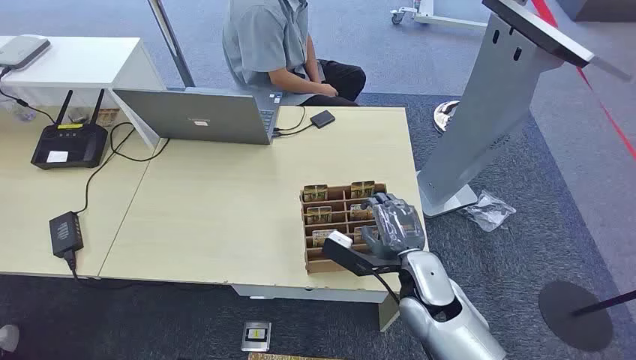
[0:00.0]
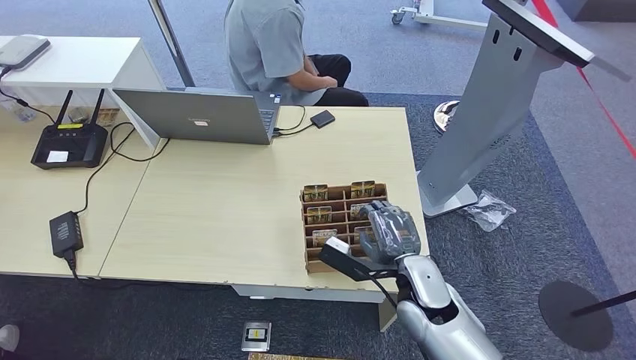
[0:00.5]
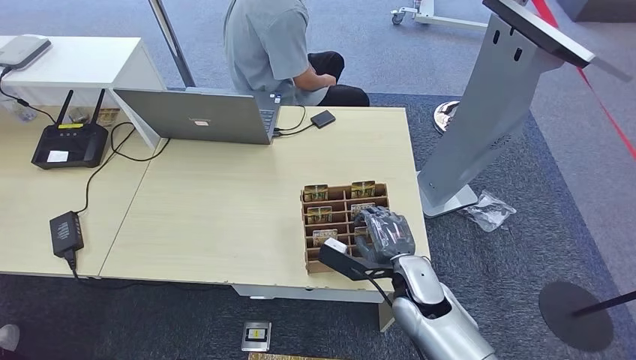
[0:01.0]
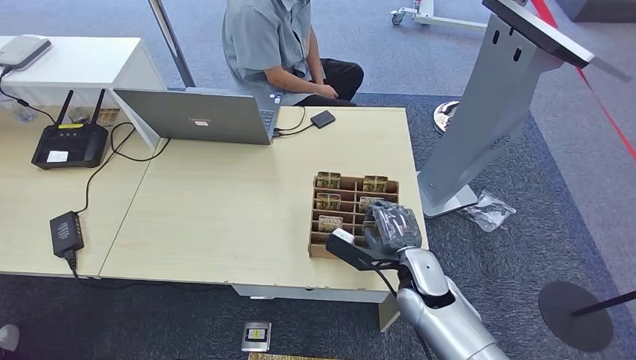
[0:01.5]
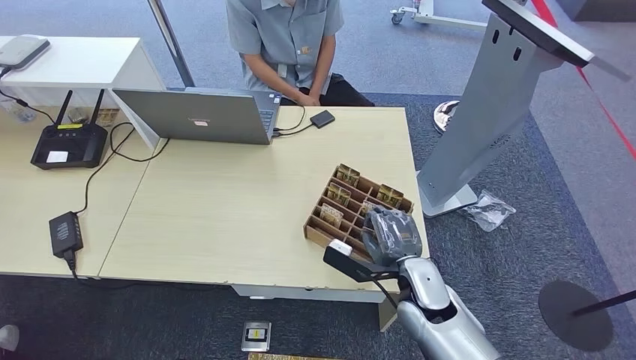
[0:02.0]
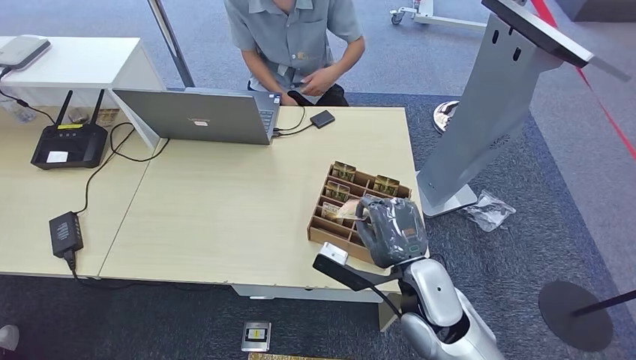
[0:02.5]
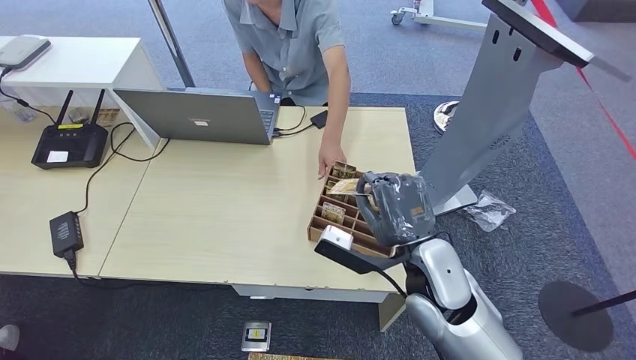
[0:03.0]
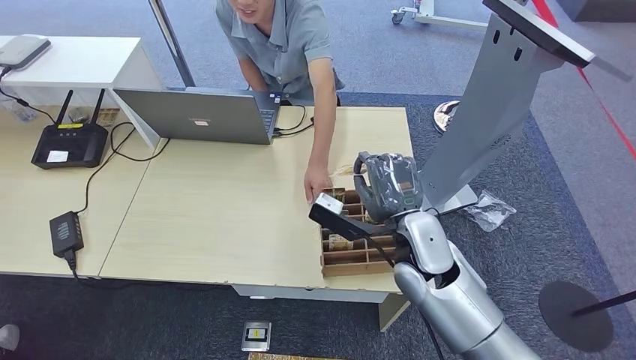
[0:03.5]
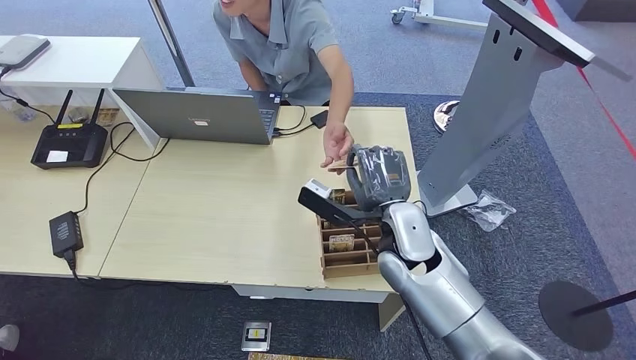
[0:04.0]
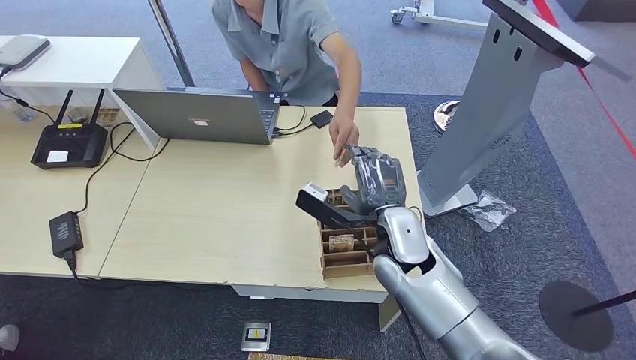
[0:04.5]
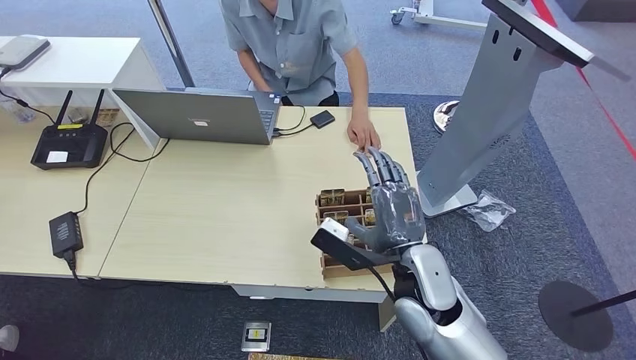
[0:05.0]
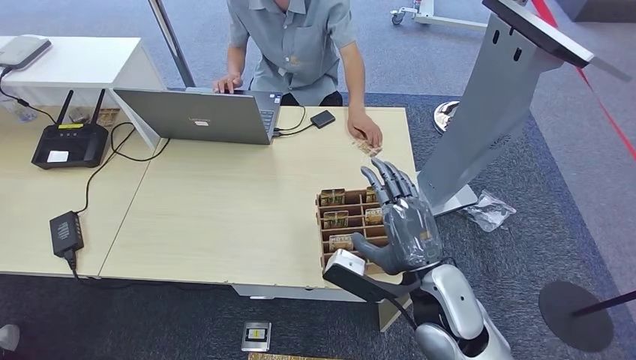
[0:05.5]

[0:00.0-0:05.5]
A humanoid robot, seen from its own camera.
Step, 0:00.0 to 0:03.0: Pick up the room card from the card holder.
Step, 0:04.5 to 0:05.5: Hand the room card to the target.
0:02.0 to 0:03.5: The right hand heads upward, covering some 10 cm.
0:03.5 to 0:05.5: The right hand heads backward, covering some 10 cm.

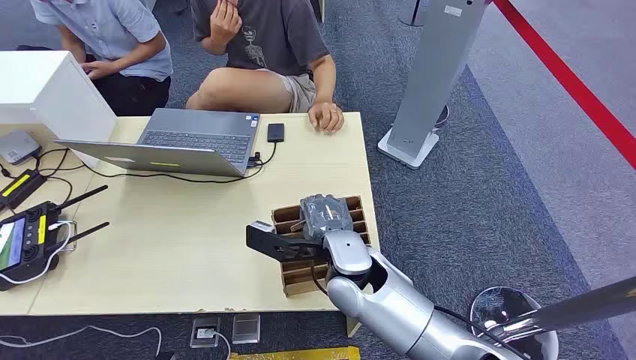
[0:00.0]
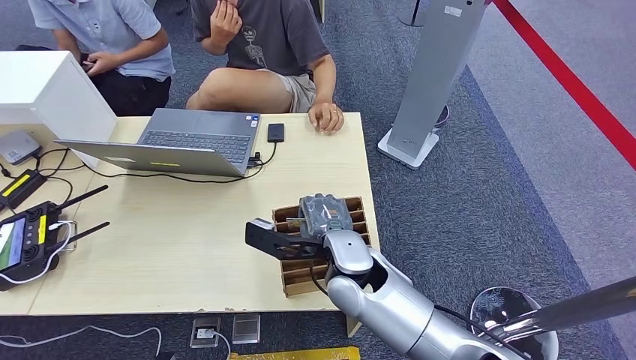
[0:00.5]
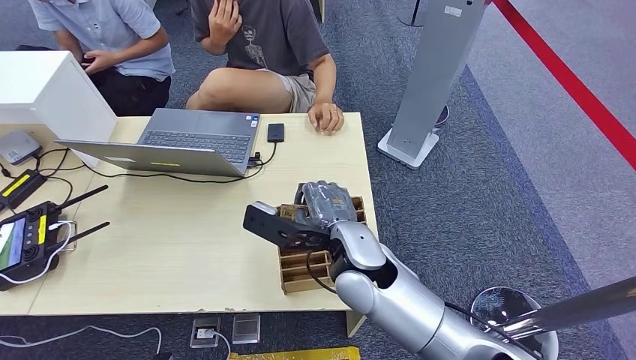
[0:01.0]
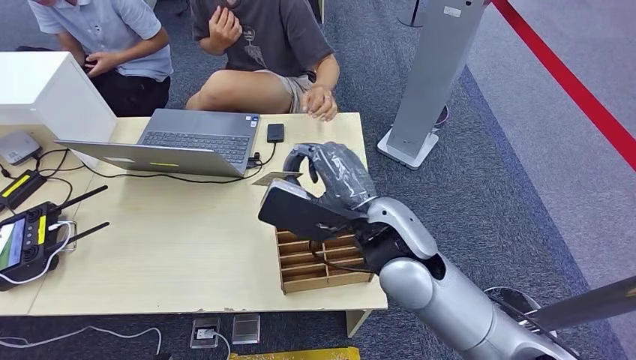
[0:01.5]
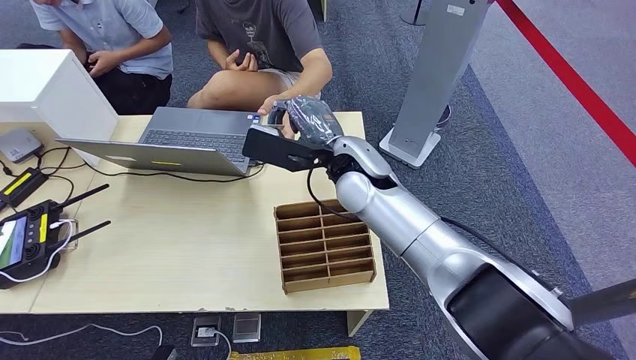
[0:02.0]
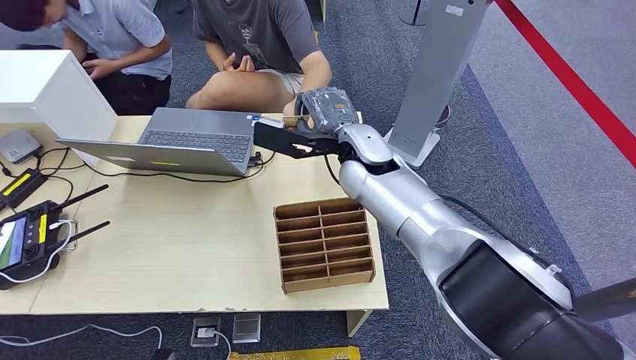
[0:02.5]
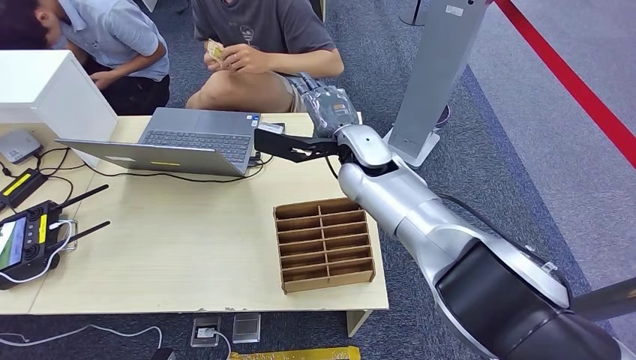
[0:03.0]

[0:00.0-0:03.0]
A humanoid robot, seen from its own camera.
Step, 0:00.0 to 0:01.0: Pick up the room card from the card holder.
Step, 0:02.0 to 0:03.0: Hand the room card to the target.

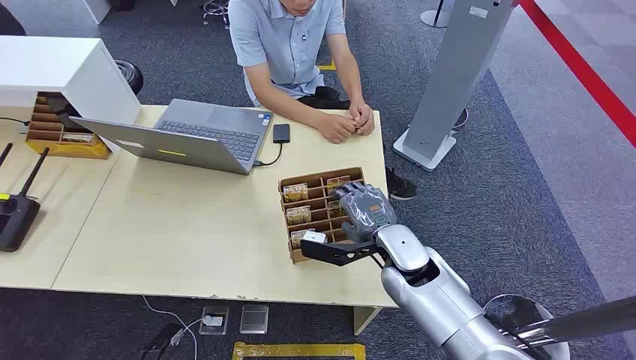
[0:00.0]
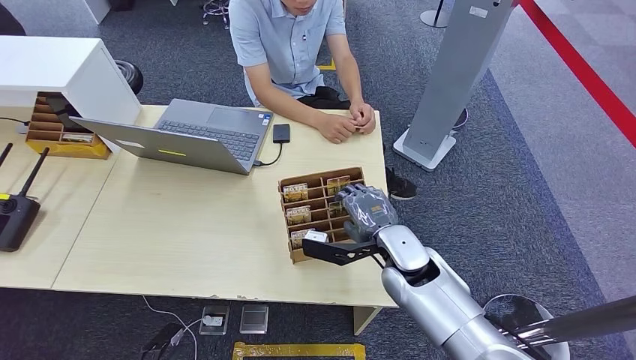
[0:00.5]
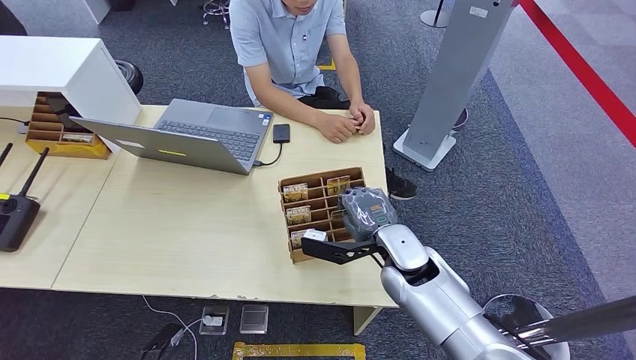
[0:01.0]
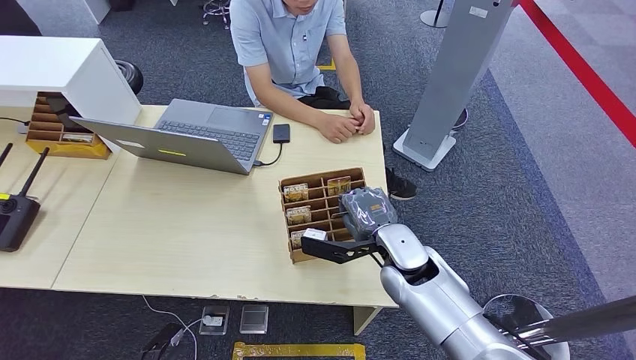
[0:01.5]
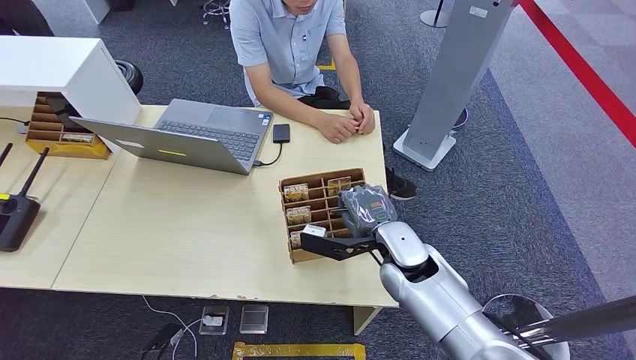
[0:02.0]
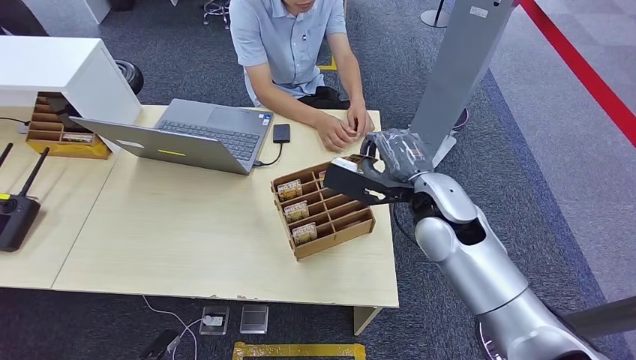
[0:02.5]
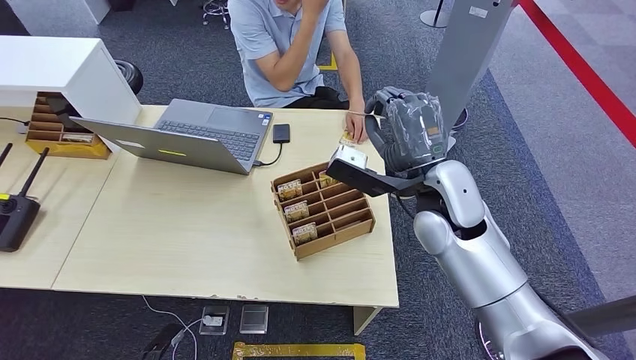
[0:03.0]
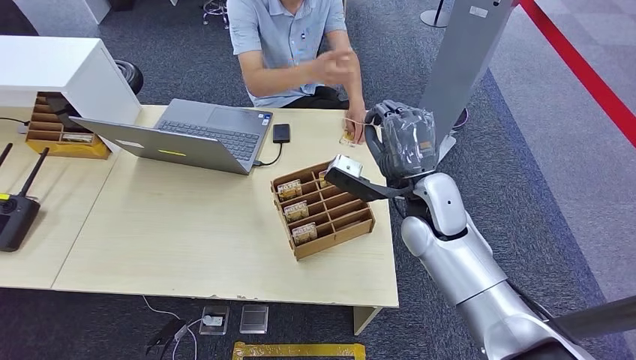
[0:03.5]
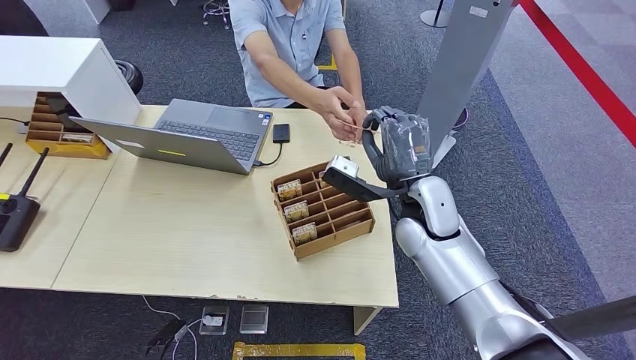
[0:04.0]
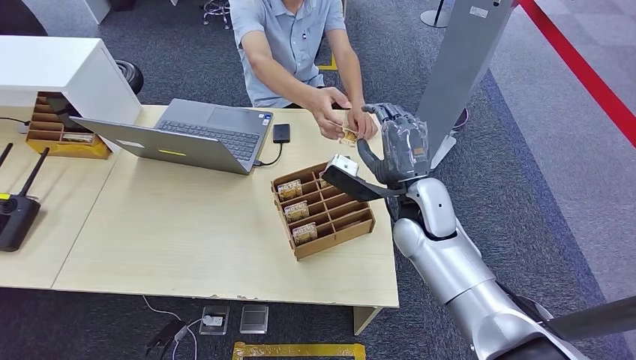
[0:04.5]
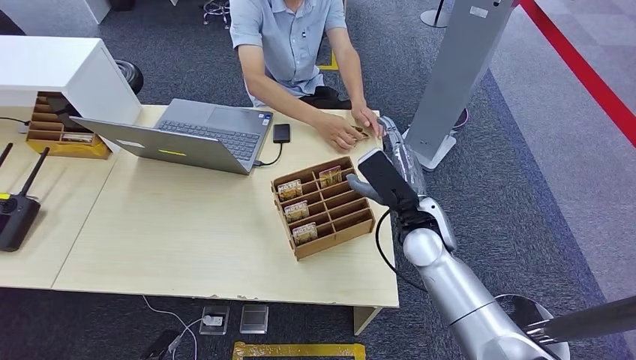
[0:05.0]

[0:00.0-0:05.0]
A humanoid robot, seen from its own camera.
Step, 0:00.0 to 0:02.0: Pick up the room card from the card holder.
Step, 0:03.5 to 0:05.0: Hand the room card to the target.
0:02.5 to 0:05.0: The right hand goes about 5 cm downward.
